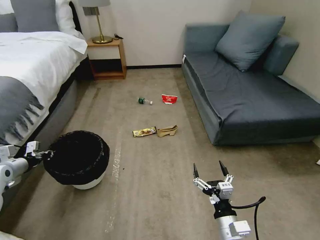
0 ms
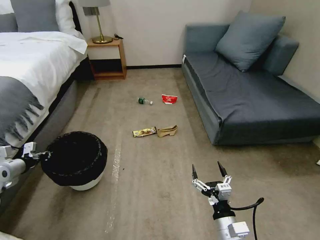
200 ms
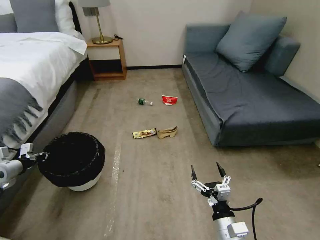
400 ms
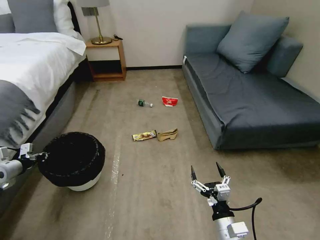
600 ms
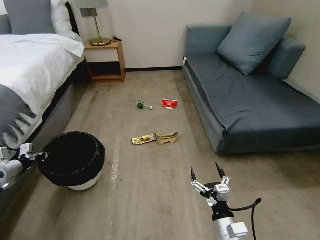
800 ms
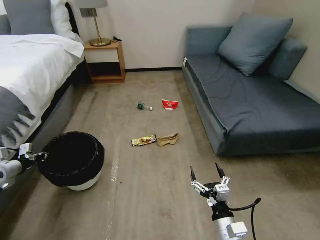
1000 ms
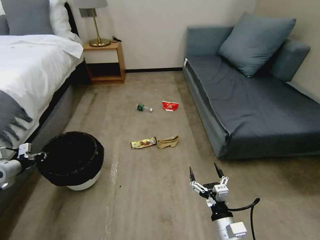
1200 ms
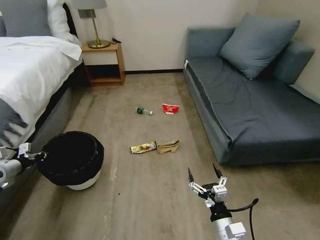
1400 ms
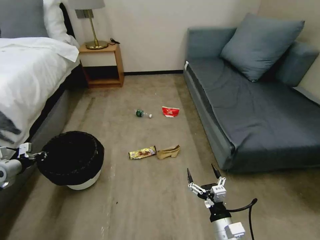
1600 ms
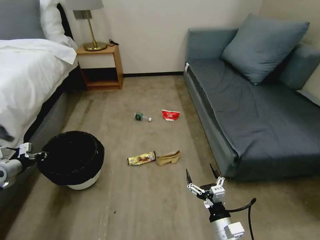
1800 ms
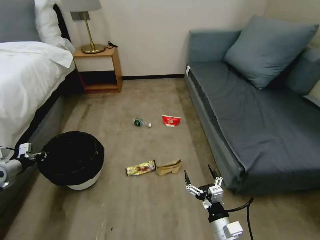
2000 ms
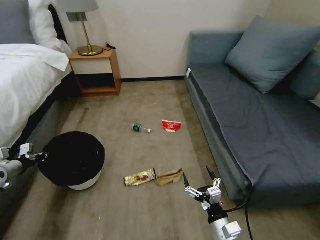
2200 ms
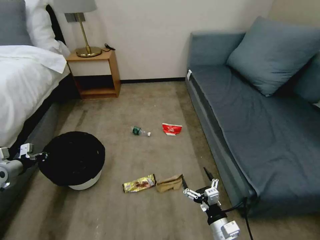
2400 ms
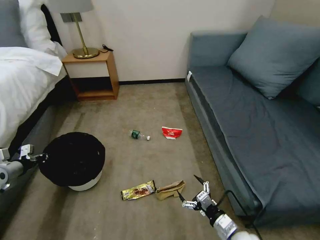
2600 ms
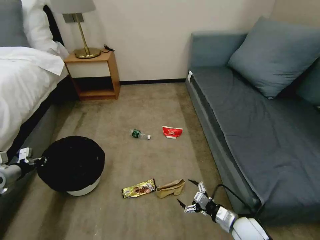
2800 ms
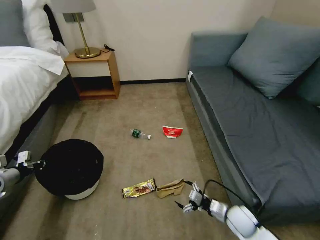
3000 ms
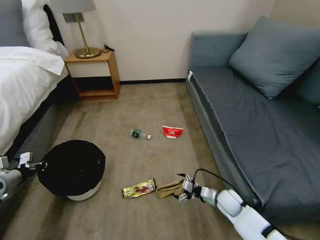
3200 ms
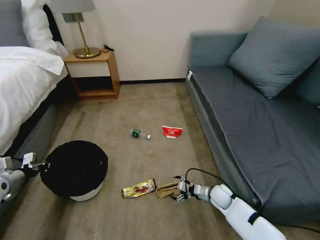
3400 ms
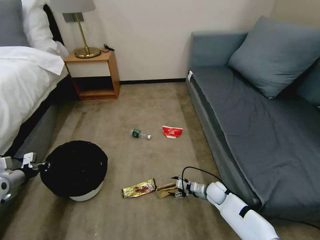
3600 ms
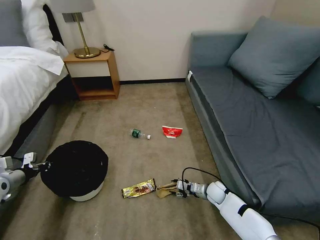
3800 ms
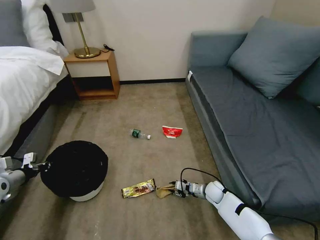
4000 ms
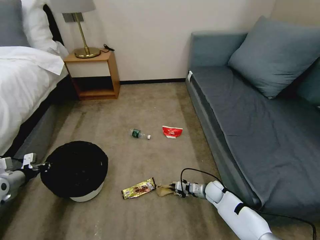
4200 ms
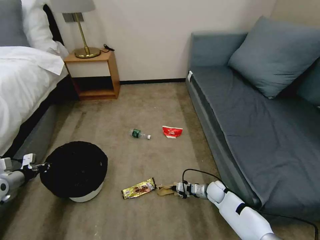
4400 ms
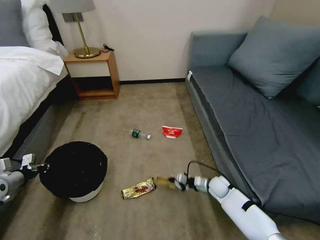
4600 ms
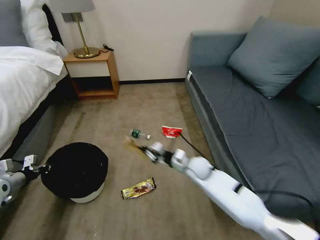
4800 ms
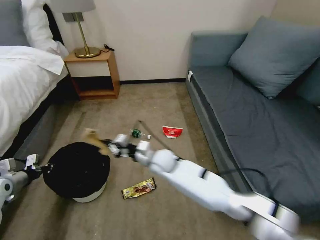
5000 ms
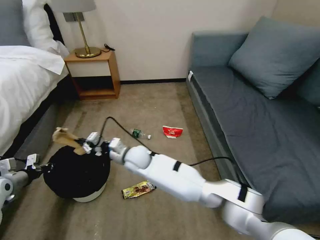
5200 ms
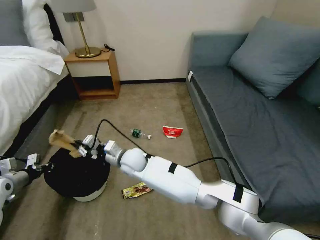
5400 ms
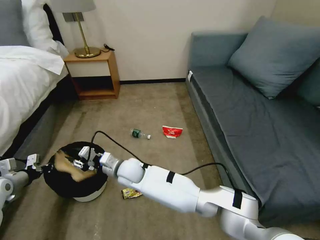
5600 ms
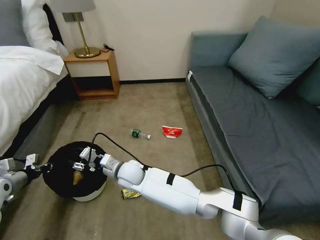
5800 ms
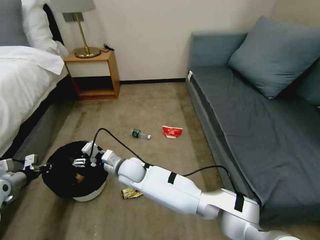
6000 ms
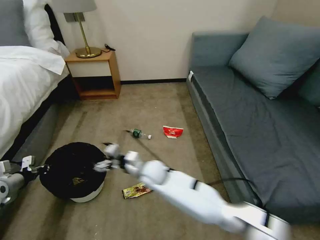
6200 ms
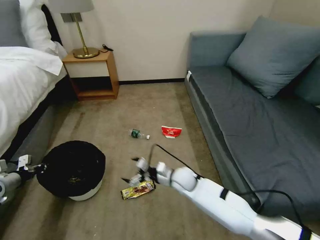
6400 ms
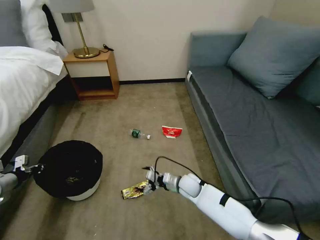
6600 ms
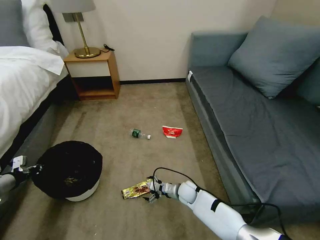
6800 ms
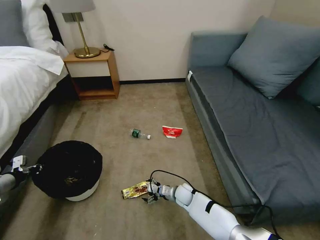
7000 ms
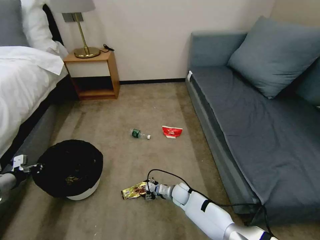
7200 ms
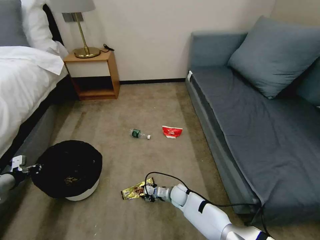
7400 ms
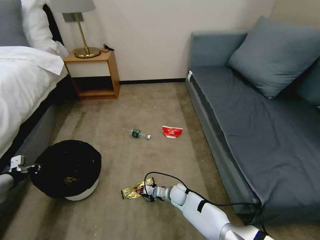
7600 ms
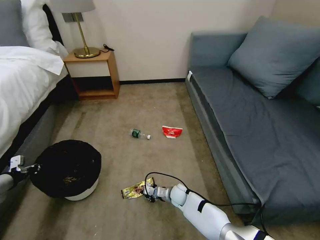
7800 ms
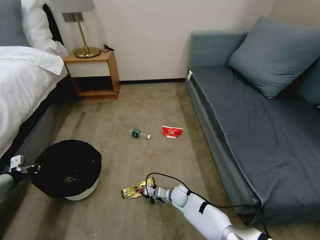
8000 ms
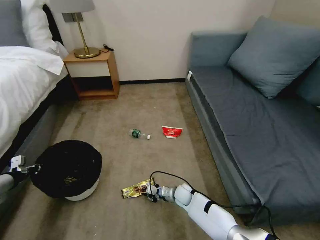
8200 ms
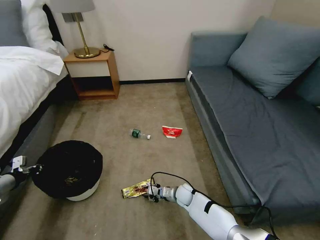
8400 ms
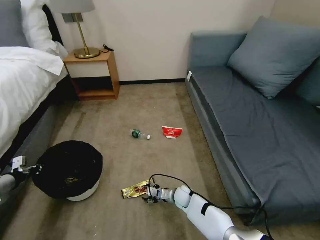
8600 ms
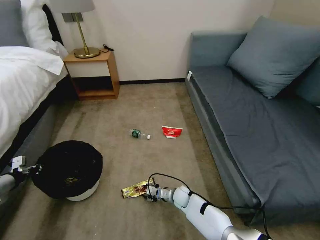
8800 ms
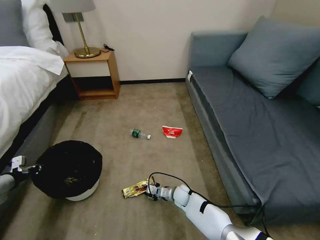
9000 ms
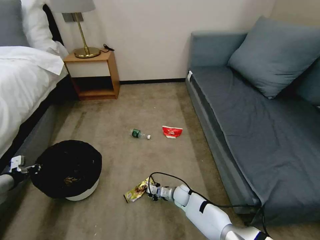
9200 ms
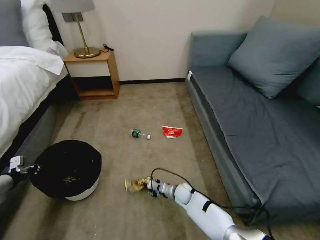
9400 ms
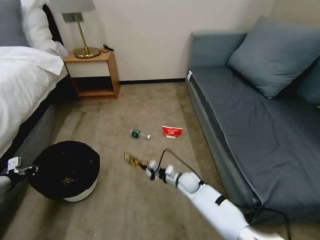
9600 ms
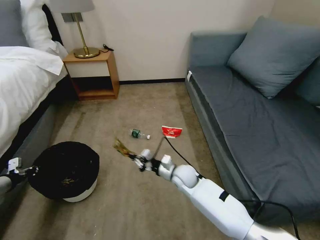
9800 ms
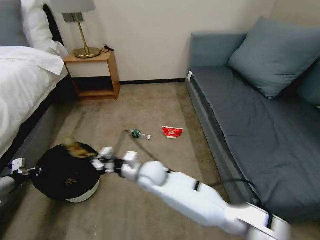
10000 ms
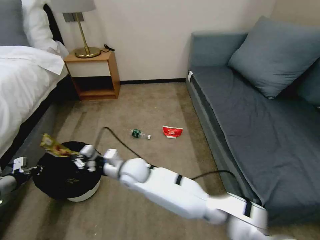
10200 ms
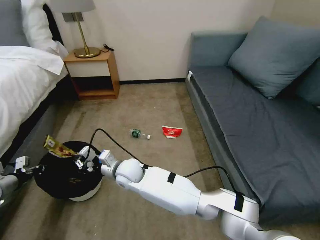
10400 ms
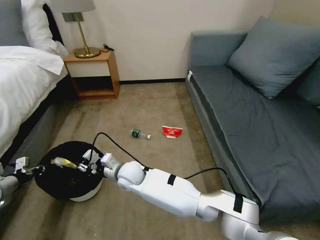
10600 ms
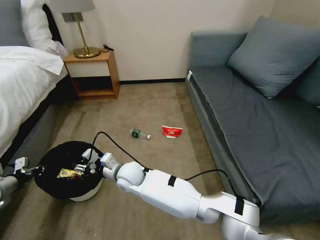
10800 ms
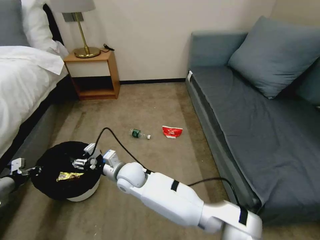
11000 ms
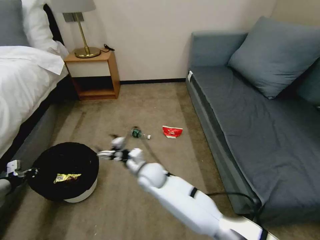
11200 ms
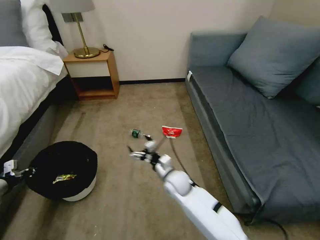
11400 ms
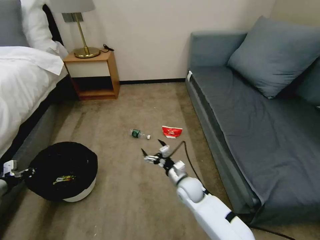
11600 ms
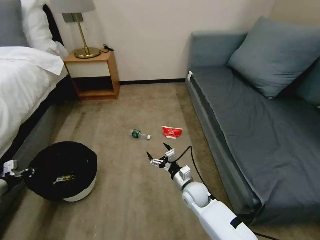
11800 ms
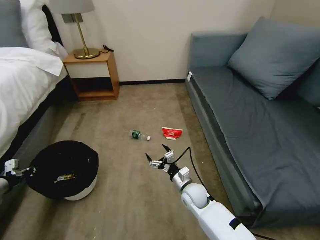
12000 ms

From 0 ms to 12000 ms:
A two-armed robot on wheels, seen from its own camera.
Task of the whole recording: Pick up the trash bin, then pick up the garbage on the floor and place it into the trash bin.
From 1600 ms to 3000 ms: The right gripper is displaced forward, to the right and downward by some 15 cm.
From 3000 ms to 4400 ms: The right gripper is displaced forward and downward by some 15 cm, and closes its fingers.
From 4400 ms to 6000 ms: The right gripper heads to the left and upward, covering approximately 40 cm, and opens up.
From 6000 ms to 7600 ms: The right gripper travels downward and to the right by roughly 30 cm, and closes up.
From 7600 ms to 9000 ms: The grippers stay close to where they were, moving slightly.
From 9000 ms to 10400 ms: The right gripper goes roughly 35 cm upward and to the left.
From 10400 ms to 12000 ms: The right gripper heads to the right and downward, covering approximately 25 cm, and opens.

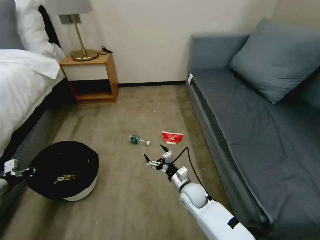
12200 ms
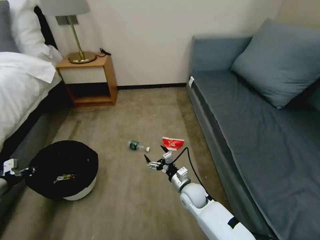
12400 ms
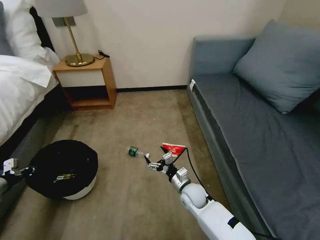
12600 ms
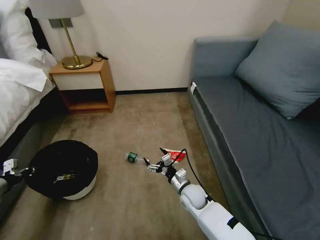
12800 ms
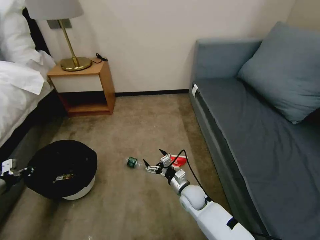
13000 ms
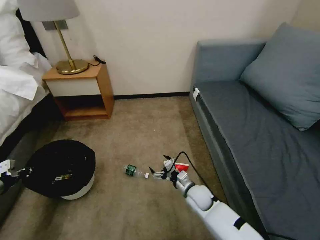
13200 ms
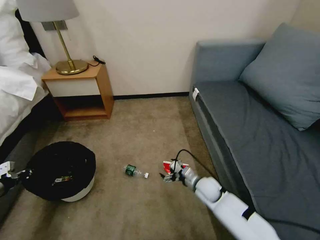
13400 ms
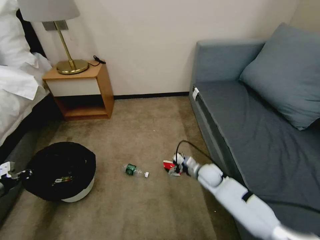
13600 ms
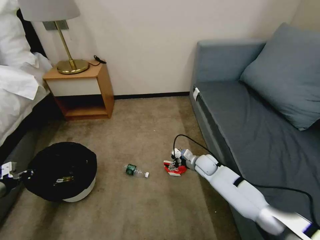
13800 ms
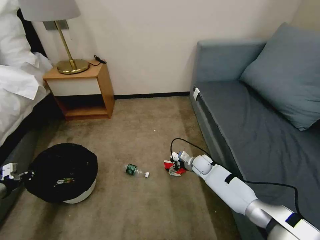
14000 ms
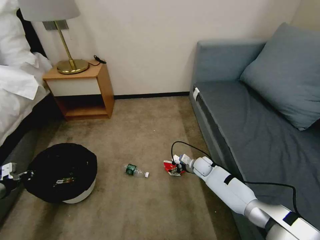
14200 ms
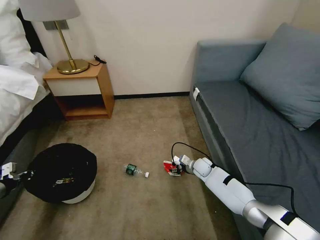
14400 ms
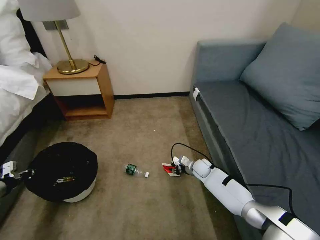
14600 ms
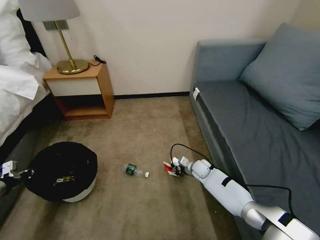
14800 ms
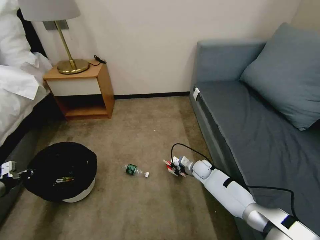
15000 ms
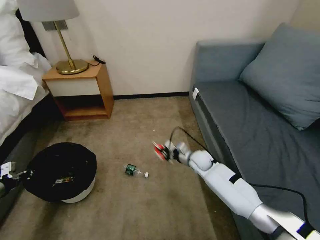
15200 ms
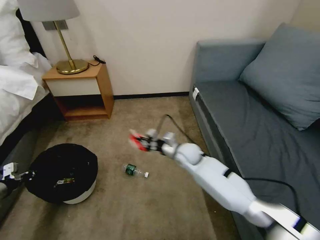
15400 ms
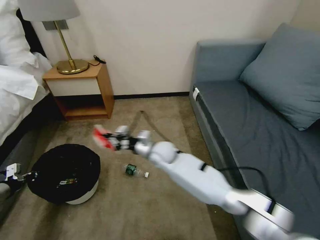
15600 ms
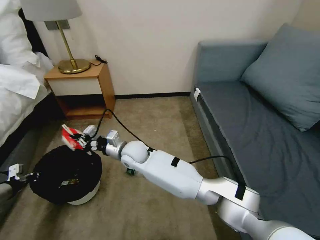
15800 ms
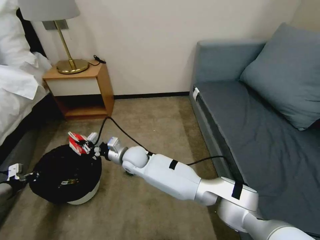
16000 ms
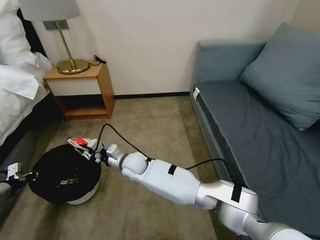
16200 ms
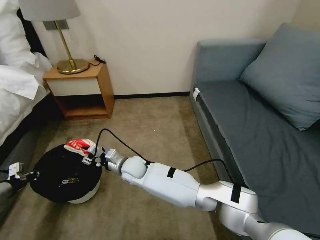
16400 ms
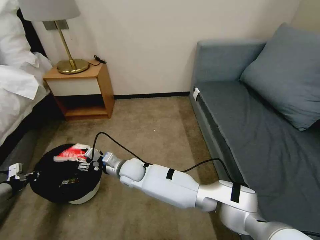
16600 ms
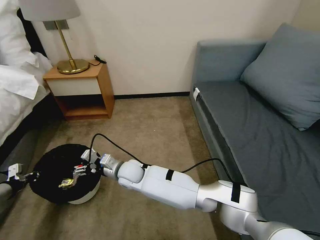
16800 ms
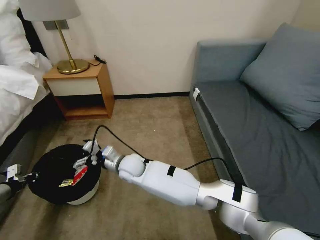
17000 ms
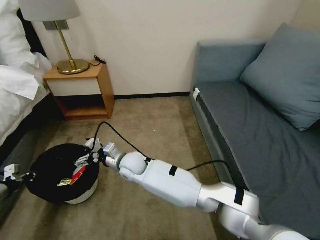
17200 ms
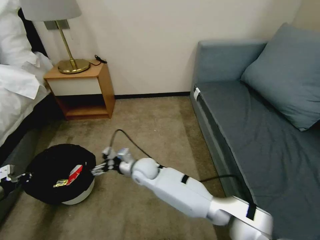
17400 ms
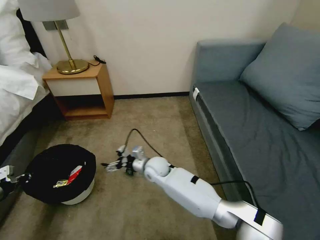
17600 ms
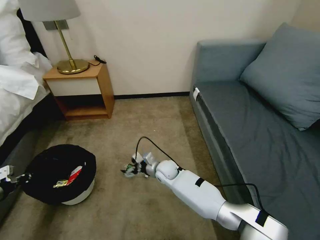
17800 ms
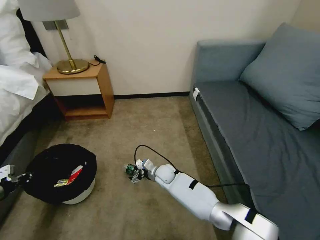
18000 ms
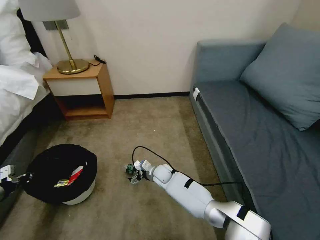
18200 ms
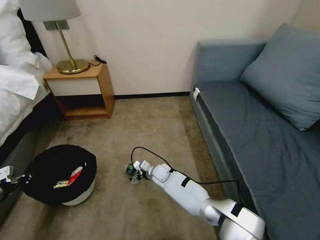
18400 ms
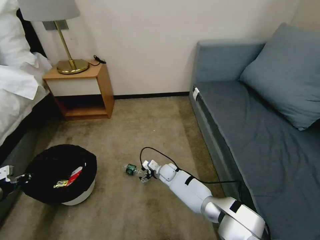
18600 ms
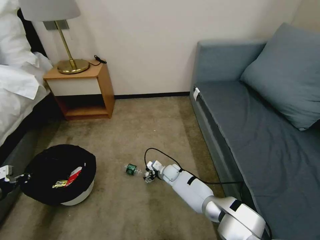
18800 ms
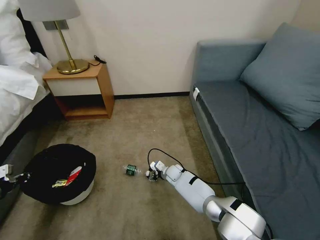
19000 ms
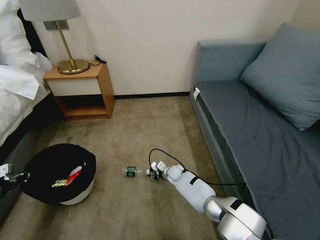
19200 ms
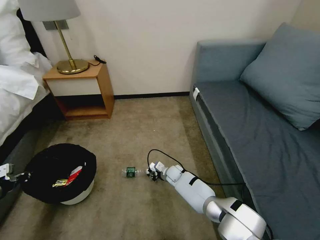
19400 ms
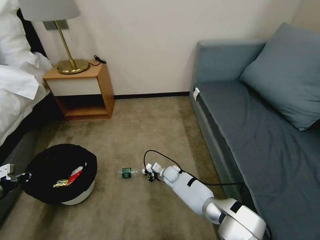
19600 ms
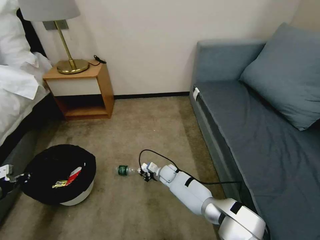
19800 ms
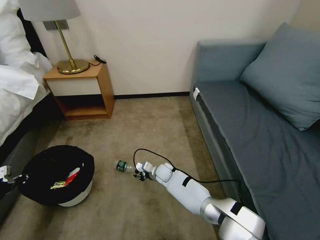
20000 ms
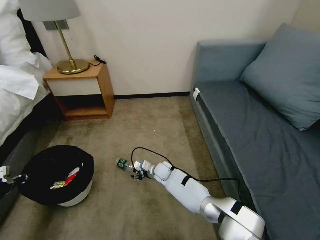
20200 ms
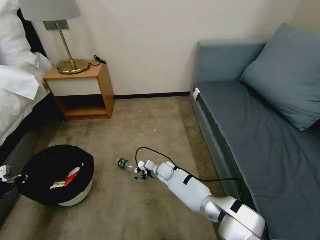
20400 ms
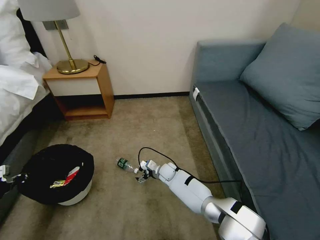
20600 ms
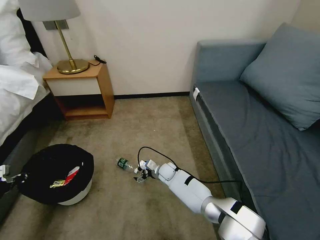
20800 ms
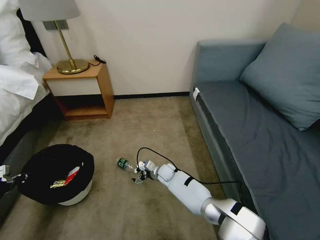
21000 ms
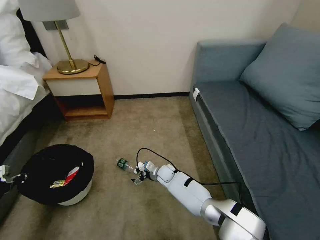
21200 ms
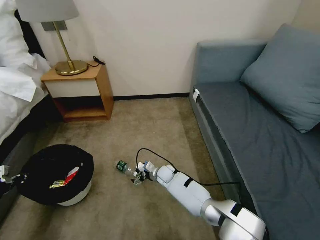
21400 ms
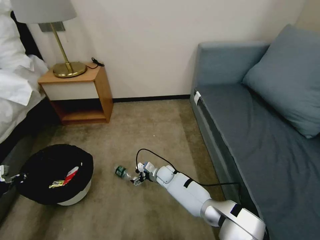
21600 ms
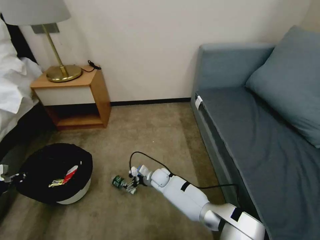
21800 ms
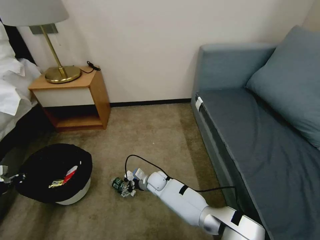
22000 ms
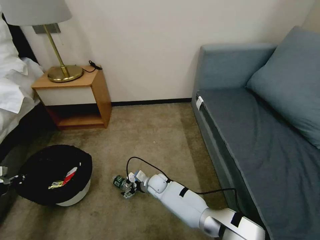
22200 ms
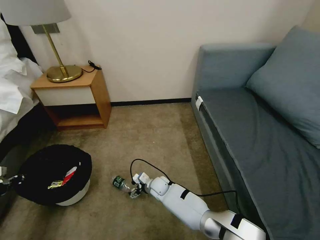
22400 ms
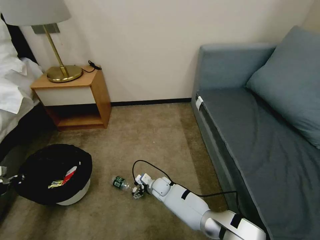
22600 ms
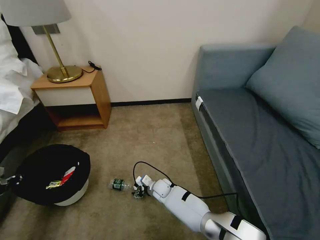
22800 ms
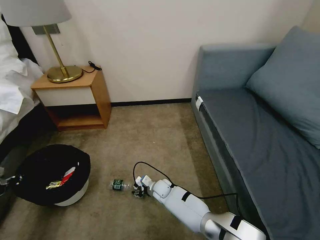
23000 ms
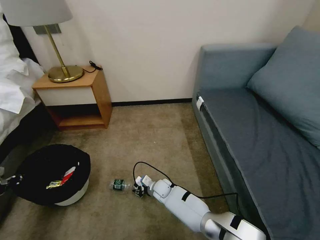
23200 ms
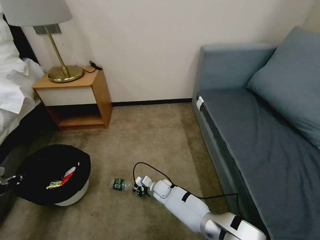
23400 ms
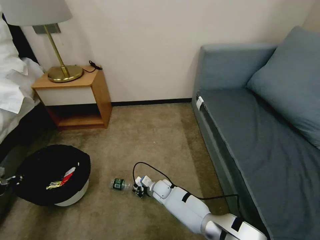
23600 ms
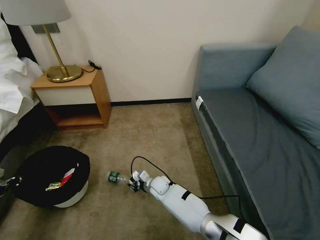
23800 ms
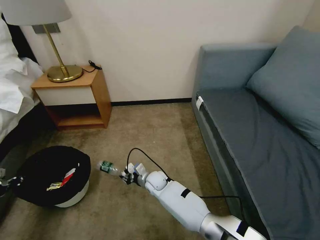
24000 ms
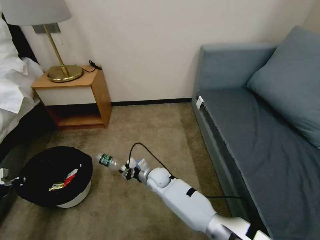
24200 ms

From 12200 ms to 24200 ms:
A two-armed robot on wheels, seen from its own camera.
Task of the whole recording: Pick up the trash bin, then pick up the garbage on the floor and place it into the trash bin.
From 12200 ms to 13800 ms: The right gripper goes roughly 15 cm forward and to the right.
From 13800 ms to 15200 ms: The right gripper goes downward and returns, roughly 5 cm each way, and closes up.
From 15200 ms to 16600 ms: The right gripper goes about 30 cm to the left, and opens.
From 16600 ms to 18200 ms: The right gripper is displaced downward and to the right by some 20 cm, and opens its fingers.
From 18200 ms to 19800 ms: The right gripper closes.
From 19800 ms to 21200 ms: The right gripper opens up.
From 21200 ms to 22600 ms: The right gripper is displaced backward by roughly 5 cm.
From 22600 ms to 24200 ms: The right gripper is displaced upward by about 10 cm, and closes its fingers.
